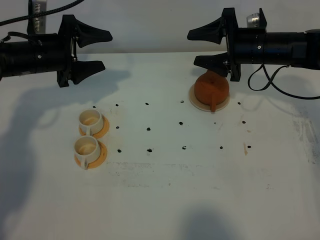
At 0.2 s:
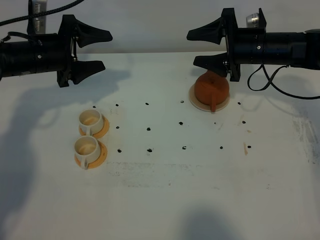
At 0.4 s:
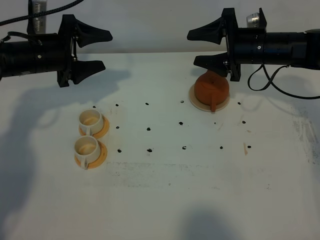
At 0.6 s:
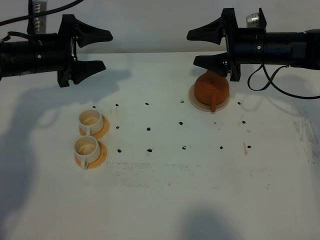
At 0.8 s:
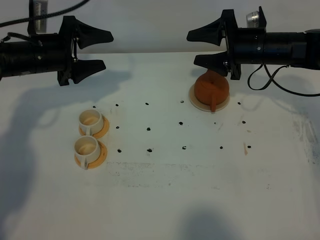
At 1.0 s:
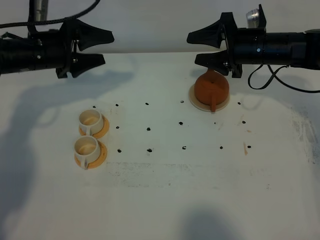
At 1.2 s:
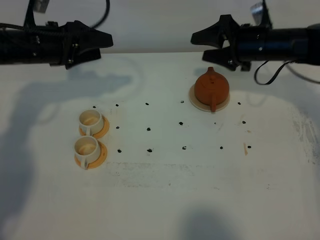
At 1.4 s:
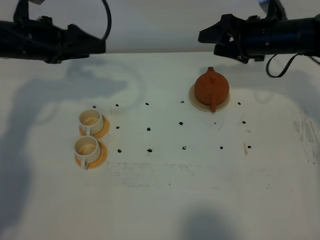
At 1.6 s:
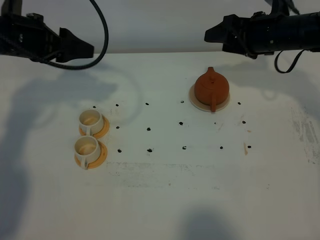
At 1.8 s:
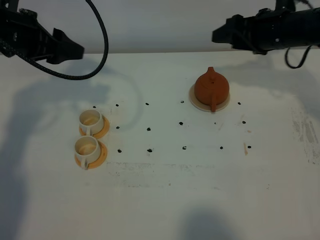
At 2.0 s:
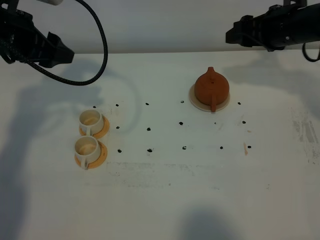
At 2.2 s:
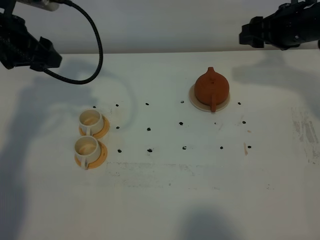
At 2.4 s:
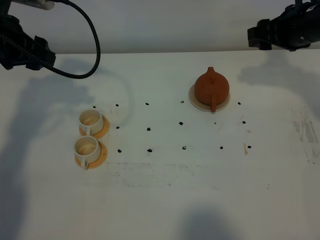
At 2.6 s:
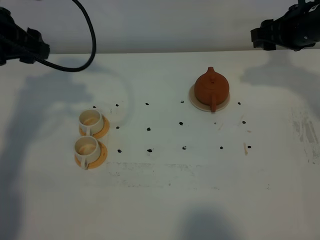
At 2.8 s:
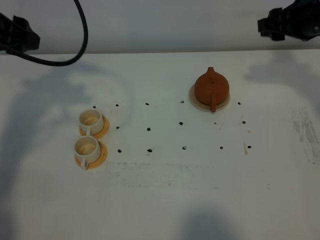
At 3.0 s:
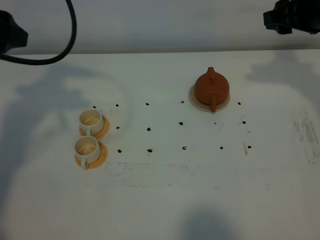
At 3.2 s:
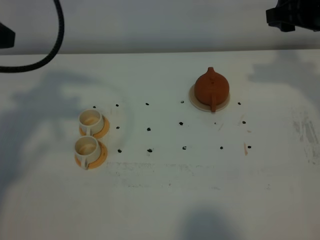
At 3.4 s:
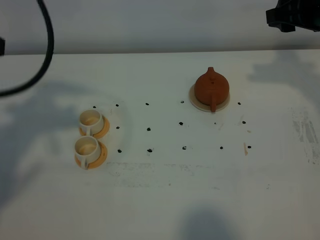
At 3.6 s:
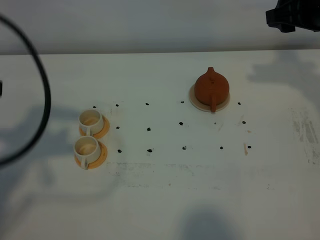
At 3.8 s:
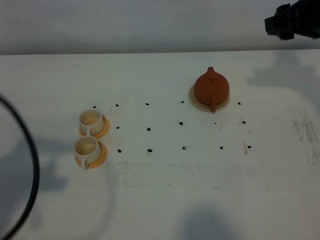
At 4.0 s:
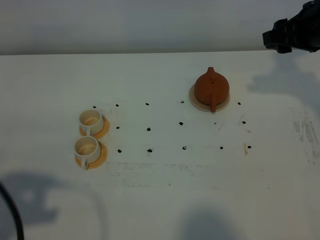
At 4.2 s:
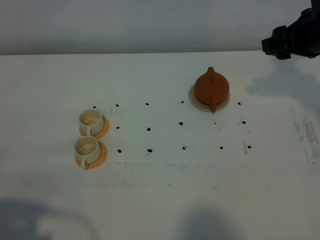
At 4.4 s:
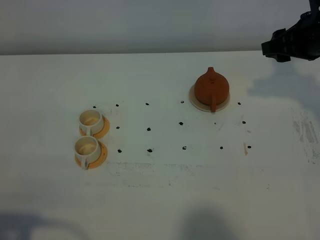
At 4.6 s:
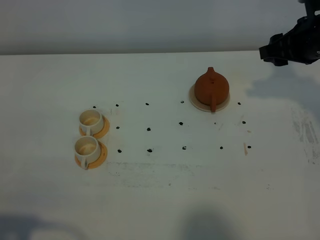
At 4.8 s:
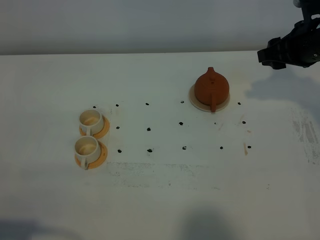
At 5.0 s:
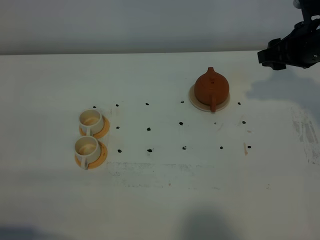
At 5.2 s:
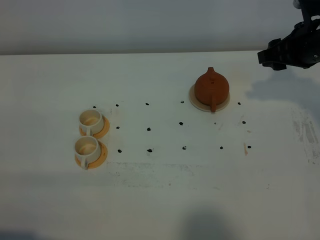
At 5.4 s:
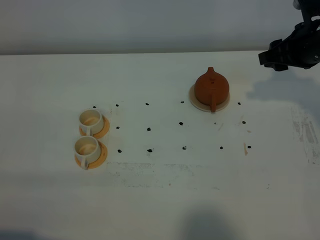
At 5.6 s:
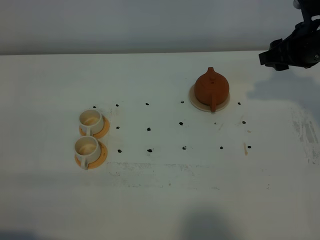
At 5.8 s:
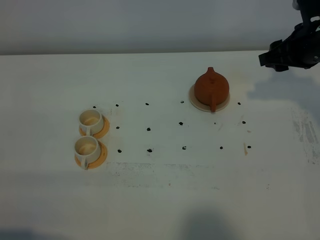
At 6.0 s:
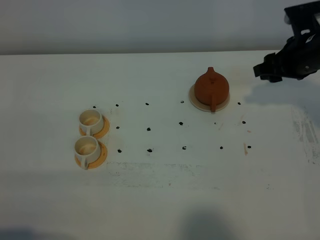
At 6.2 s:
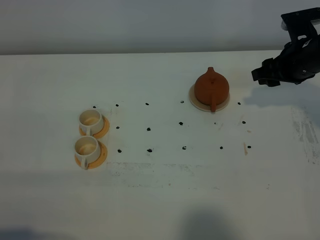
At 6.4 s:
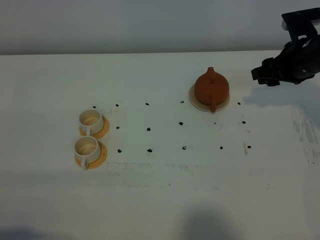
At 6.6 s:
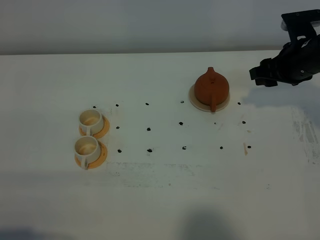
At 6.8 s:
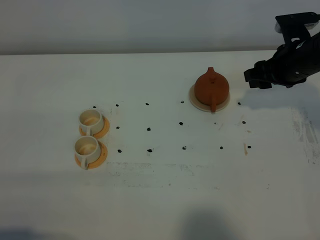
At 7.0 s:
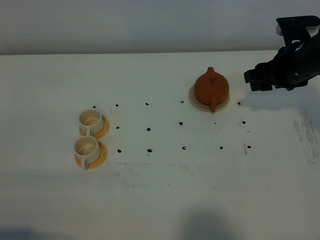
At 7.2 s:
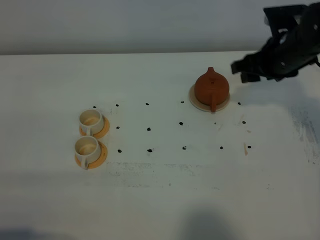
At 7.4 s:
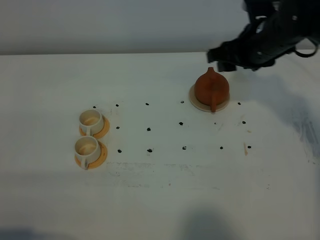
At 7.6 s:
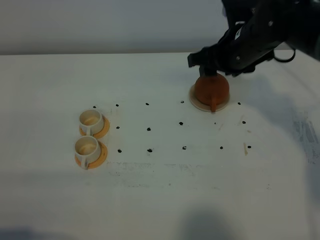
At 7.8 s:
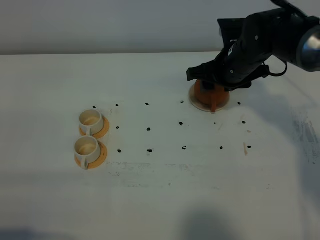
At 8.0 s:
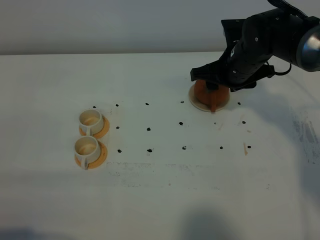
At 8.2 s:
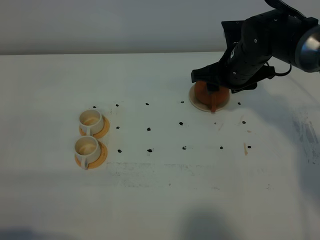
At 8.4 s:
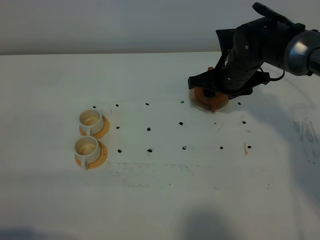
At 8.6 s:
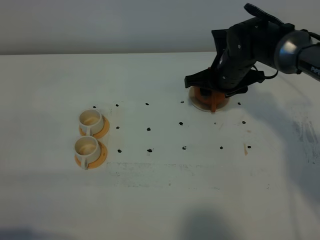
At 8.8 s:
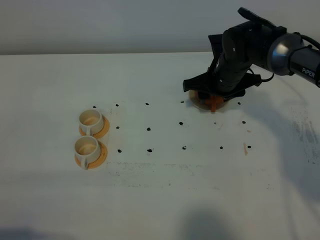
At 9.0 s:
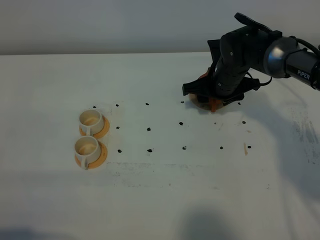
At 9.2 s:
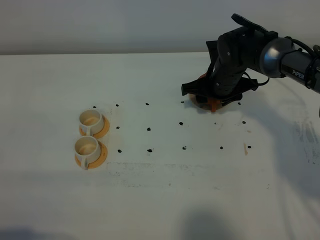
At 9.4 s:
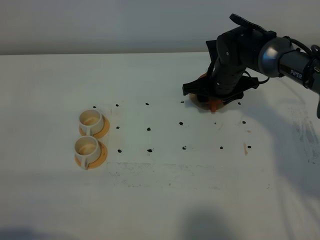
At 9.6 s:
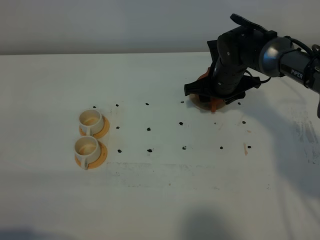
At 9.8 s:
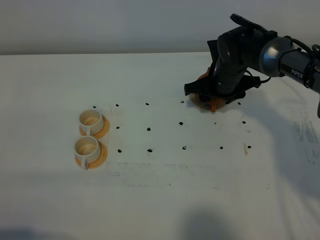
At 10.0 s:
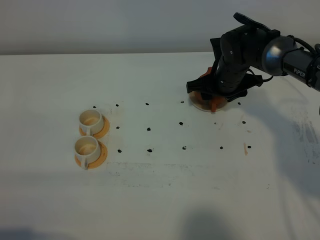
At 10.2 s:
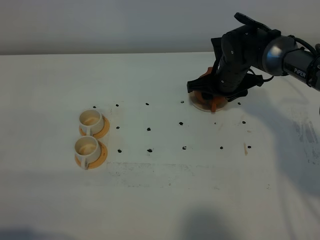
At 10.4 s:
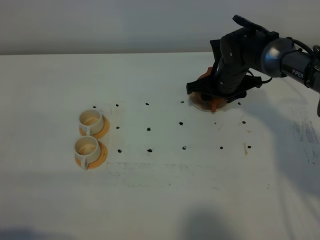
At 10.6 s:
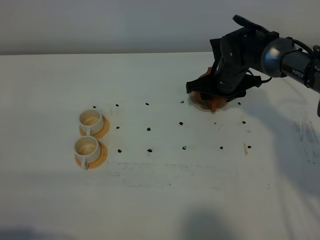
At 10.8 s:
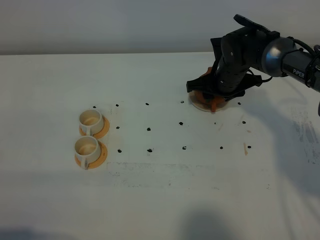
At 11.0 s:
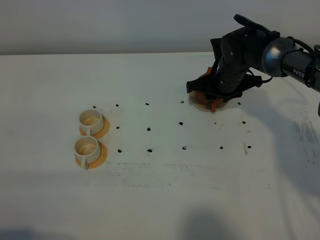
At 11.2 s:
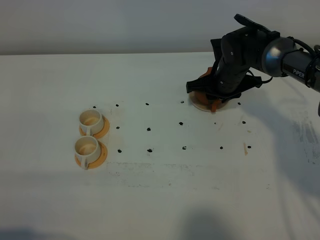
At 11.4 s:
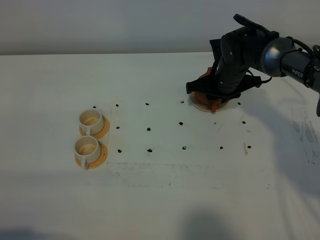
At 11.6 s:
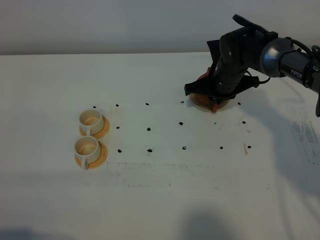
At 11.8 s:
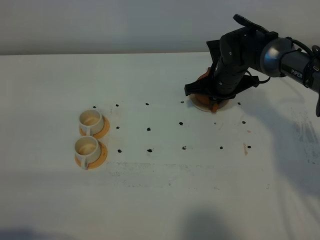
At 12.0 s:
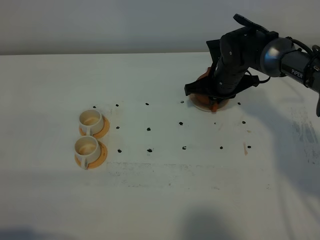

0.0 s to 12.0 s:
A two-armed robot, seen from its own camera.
Task of the whole recording: grasp the brown teapot and pour the tea into the two white teacups one by one, put the brown teapot back in its original place.
0.0 to 1.6 s: The left gripper goes some 10 cm upward.
1.6 to 3.0 s: The left gripper goes approximately 15 cm upward and backward; the right gripper shifts approximately 10 cm upward and to the right.
3.0 to 4.4 s: The left gripper shifts some 30 cm backward and downward.
4.4 to 6.0 s: The right gripper heads downward, covering about 5 cm.
6.0 to 7.6 s: The right gripper moves to the left, approximately 10 cm.
7.6 to 9.0 s: The right gripper moves downward, approximately 10 cm.
9.0 to 10.4 s: The grippers stay close to where they were, moving slightly.
10.4 to 12.0 s: The right gripper closes its fingers.

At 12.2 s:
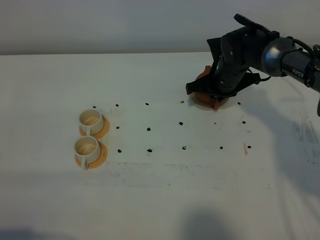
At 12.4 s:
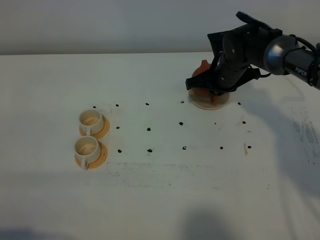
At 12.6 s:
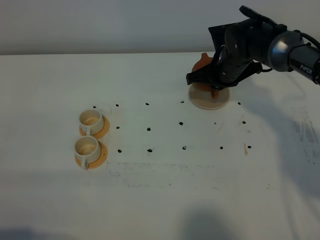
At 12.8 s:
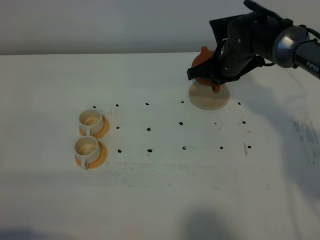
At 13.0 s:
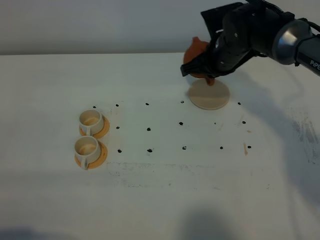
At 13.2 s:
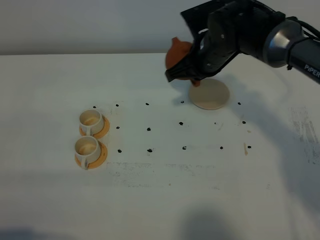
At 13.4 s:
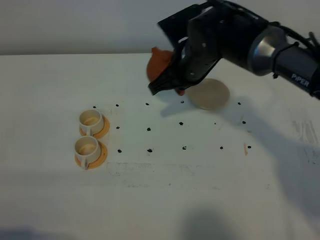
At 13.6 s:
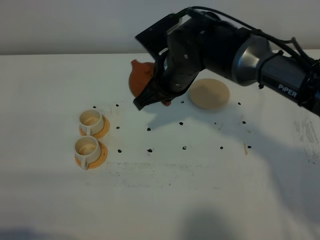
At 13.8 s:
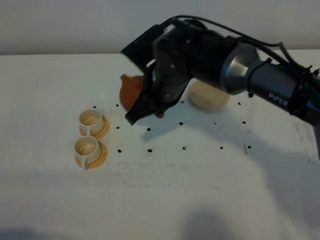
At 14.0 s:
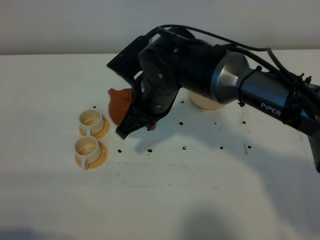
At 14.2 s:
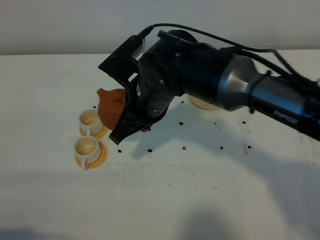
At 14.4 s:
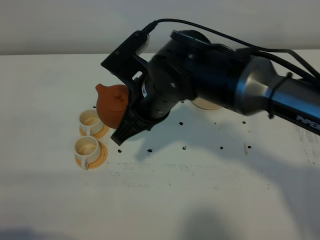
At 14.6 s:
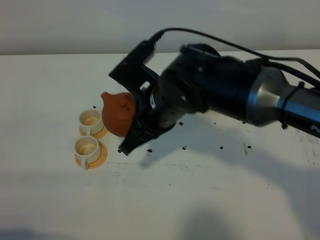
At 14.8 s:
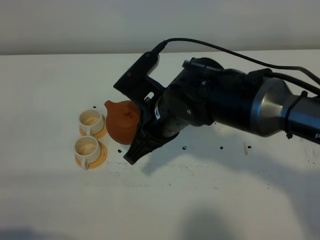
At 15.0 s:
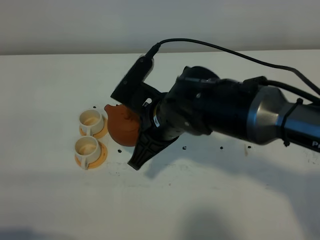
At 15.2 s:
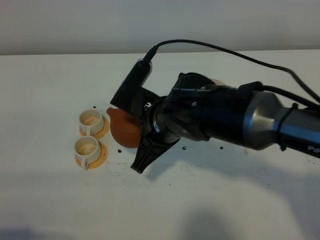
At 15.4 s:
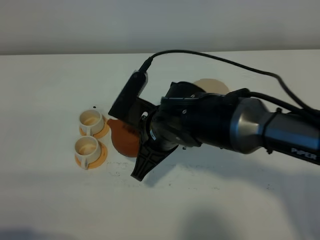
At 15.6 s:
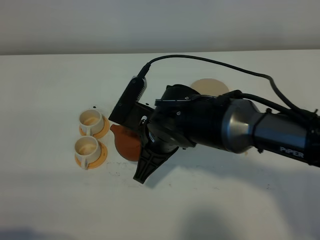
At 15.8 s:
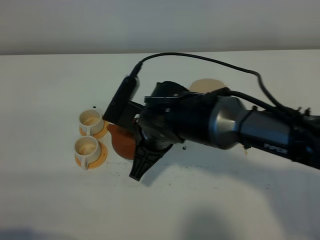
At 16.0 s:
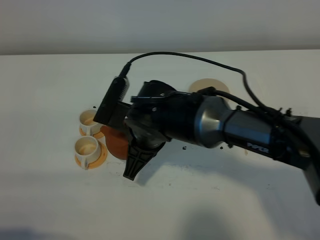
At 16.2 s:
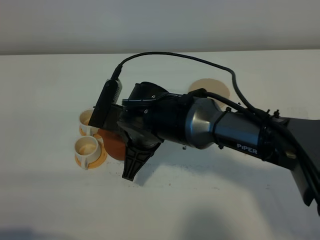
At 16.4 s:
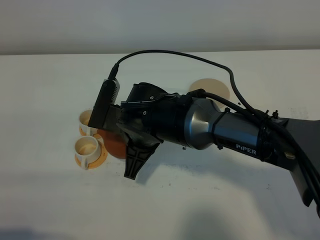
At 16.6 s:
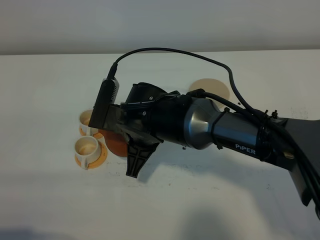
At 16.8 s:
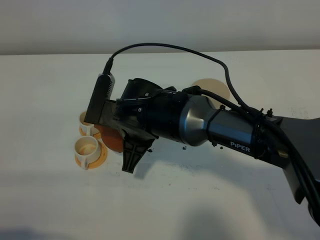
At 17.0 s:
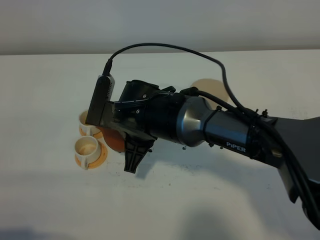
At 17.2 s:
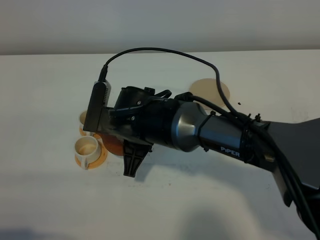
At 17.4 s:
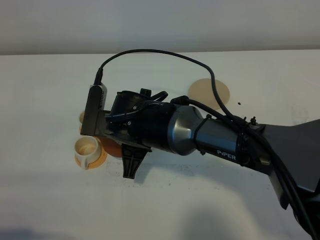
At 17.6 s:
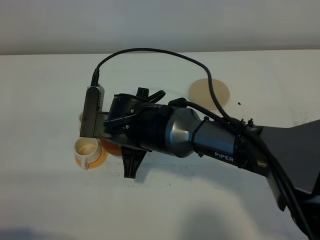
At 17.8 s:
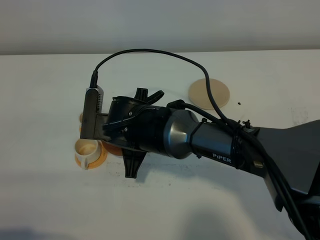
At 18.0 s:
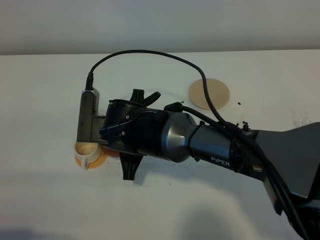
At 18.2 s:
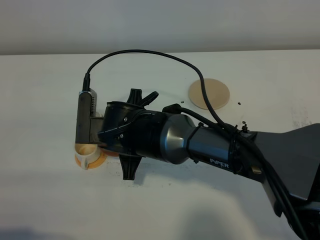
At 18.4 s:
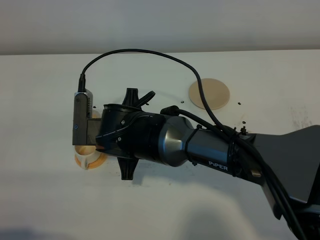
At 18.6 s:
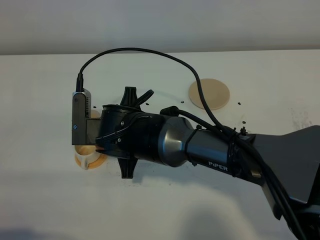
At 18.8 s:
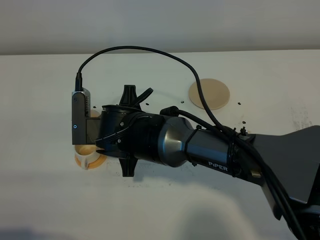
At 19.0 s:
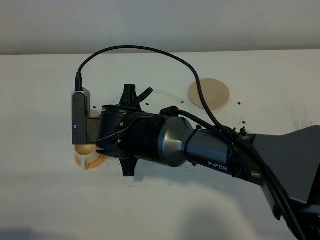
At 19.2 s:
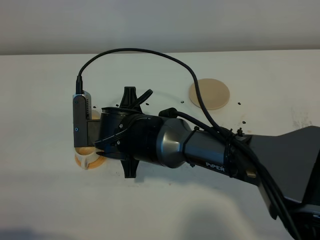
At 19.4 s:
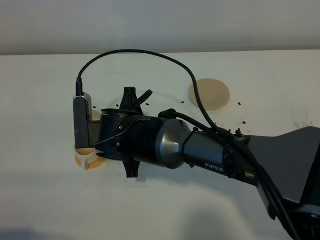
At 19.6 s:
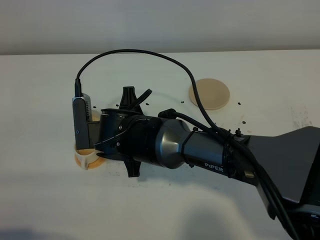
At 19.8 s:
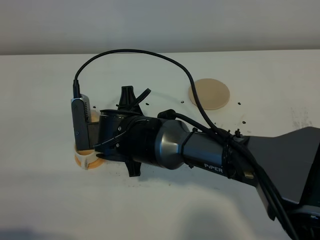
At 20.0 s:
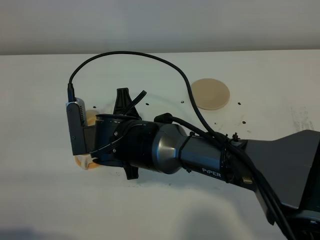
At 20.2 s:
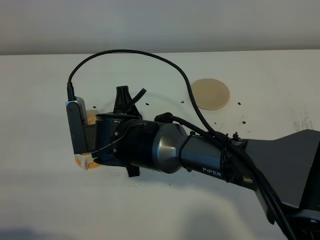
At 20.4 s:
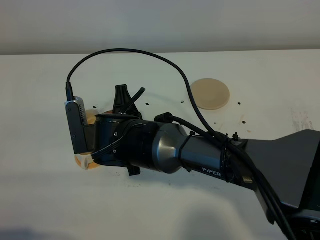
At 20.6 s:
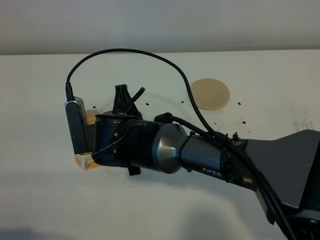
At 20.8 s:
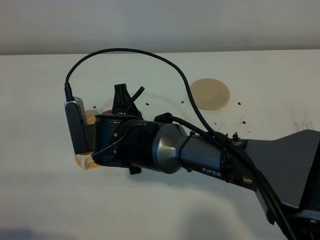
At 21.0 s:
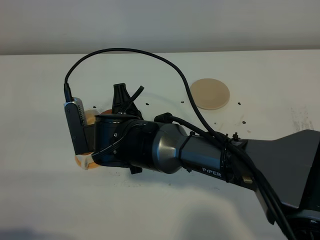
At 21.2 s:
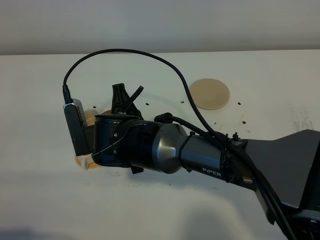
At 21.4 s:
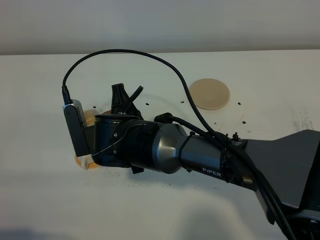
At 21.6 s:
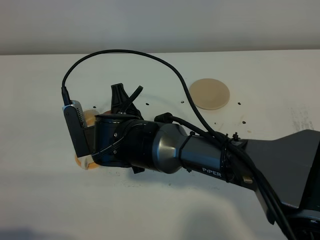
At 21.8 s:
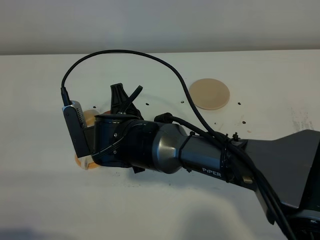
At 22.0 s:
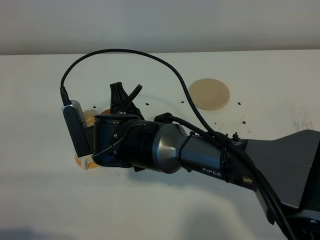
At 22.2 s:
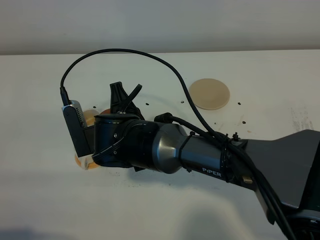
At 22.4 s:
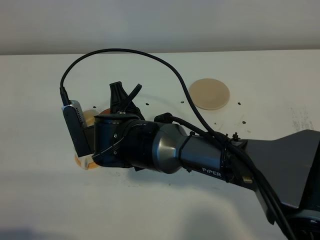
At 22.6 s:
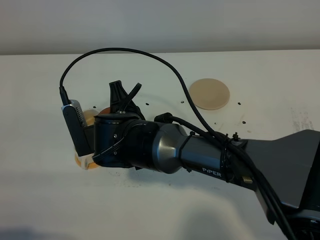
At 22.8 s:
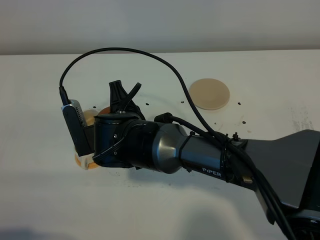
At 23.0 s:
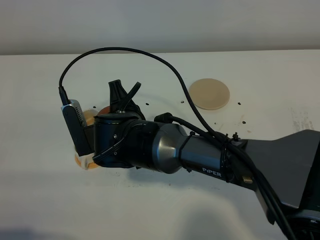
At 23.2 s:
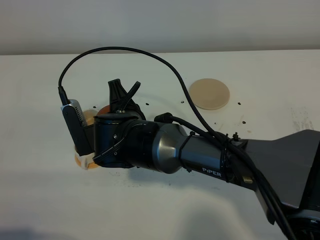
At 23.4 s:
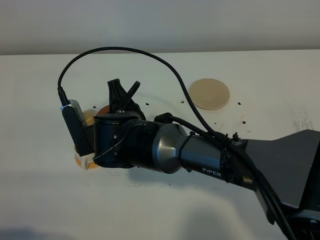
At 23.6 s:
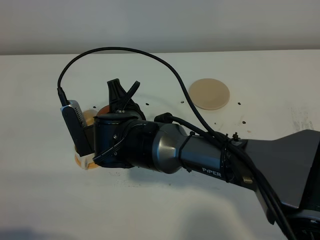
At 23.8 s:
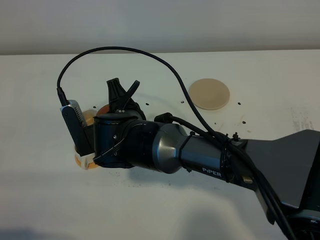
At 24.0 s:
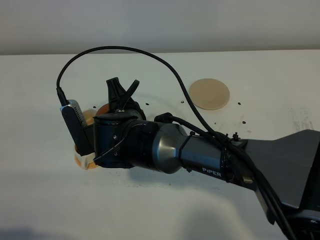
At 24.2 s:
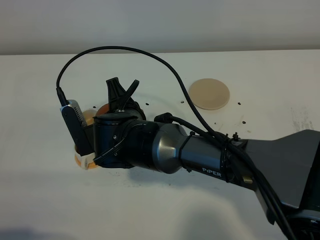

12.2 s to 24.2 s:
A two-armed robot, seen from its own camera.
Task of the whole recording: grasp the brown teapot and pour the tea into the two white teacups one by one, put the brown teapot back in its original place.
12.2 to 13.8 s: The right gripper moves backward, to the left and upward, about 20 cm.
13.8 to 15.2 s: The right gripper travels backward by roughly 5 cm.
15.2 to 16.6 s: The right gripper ends up about 5 cm from where it was.
18.2 to 21.2 s: There are only small adjustments of the grippers.
21.2 to 22.6 s: Neither gripper changes place.
22.6 to 24.2 s: Neither gripper changes place.
